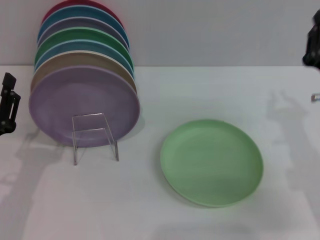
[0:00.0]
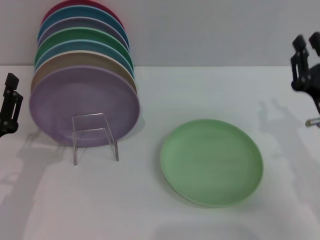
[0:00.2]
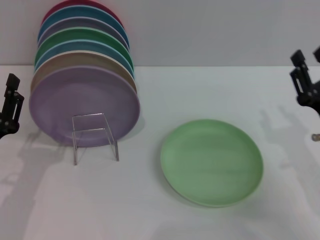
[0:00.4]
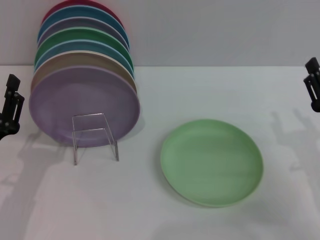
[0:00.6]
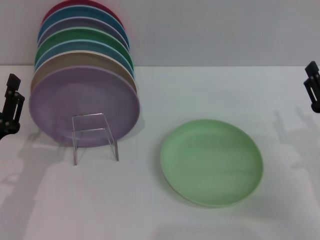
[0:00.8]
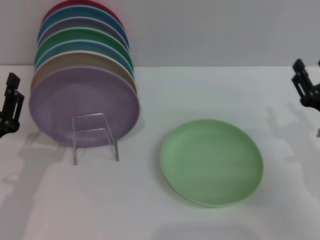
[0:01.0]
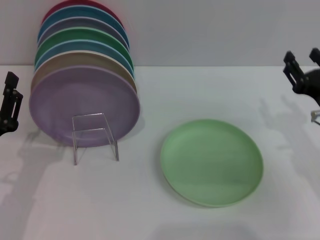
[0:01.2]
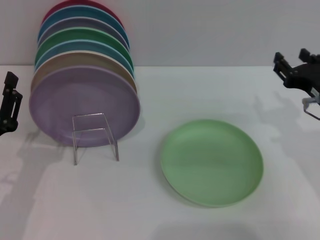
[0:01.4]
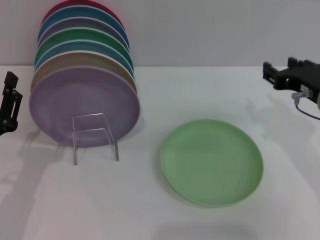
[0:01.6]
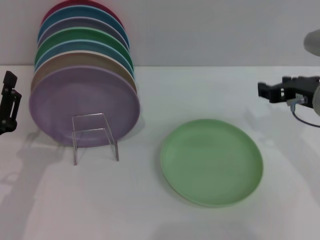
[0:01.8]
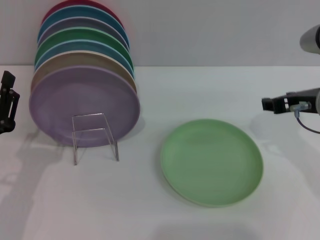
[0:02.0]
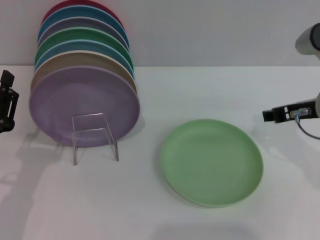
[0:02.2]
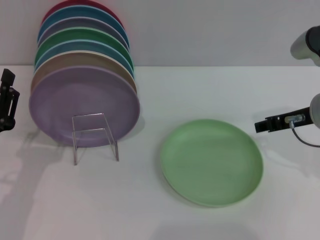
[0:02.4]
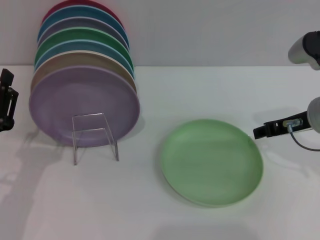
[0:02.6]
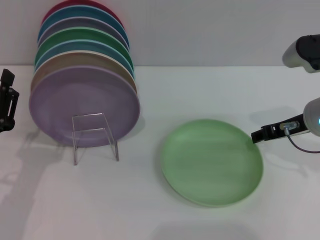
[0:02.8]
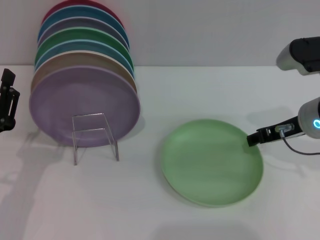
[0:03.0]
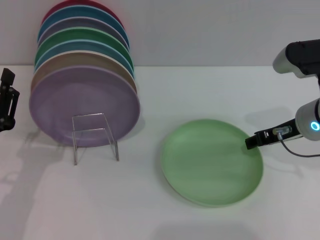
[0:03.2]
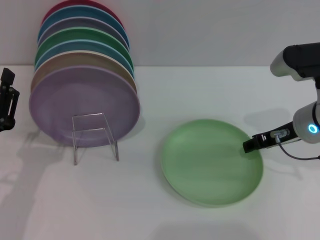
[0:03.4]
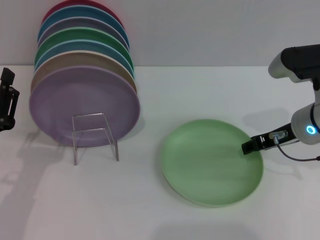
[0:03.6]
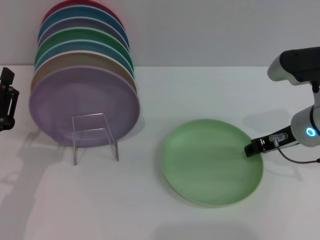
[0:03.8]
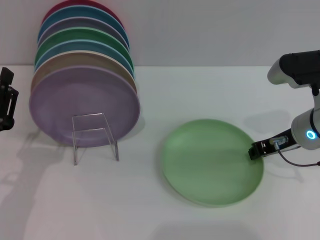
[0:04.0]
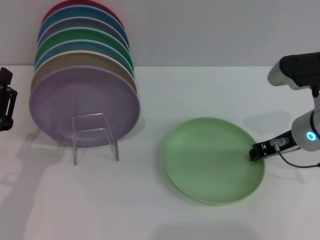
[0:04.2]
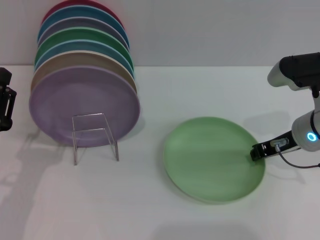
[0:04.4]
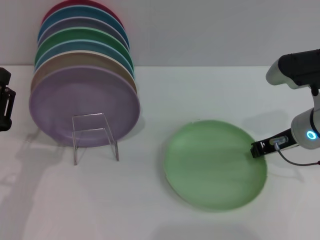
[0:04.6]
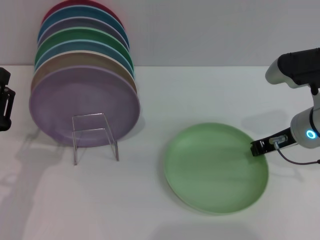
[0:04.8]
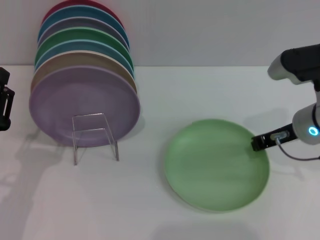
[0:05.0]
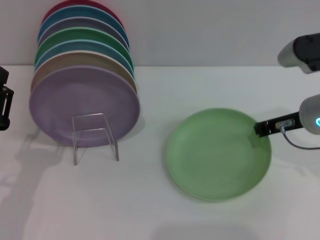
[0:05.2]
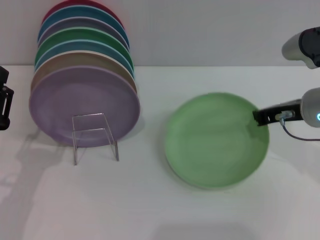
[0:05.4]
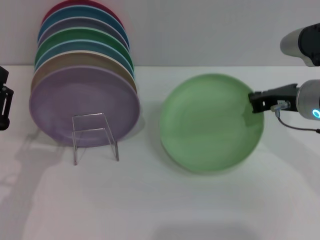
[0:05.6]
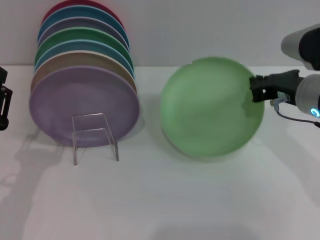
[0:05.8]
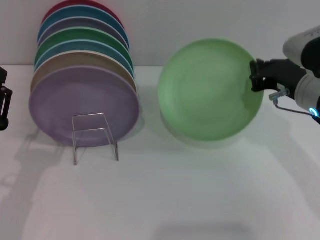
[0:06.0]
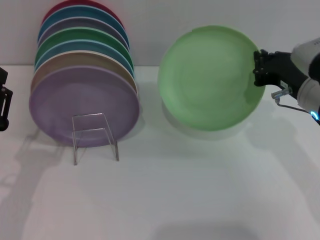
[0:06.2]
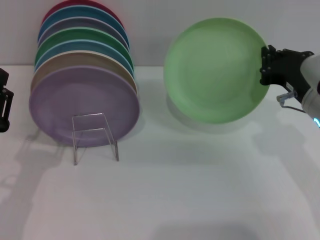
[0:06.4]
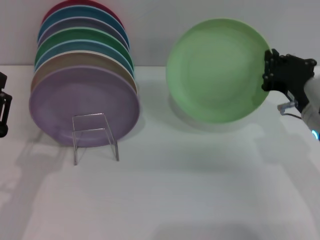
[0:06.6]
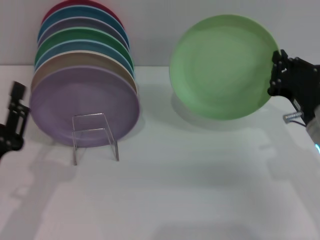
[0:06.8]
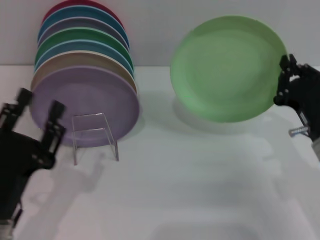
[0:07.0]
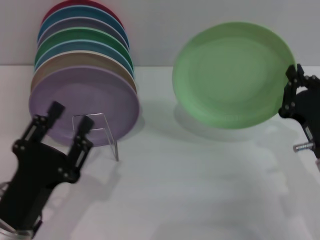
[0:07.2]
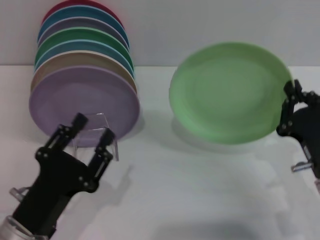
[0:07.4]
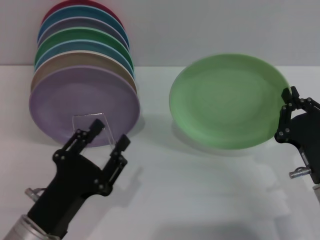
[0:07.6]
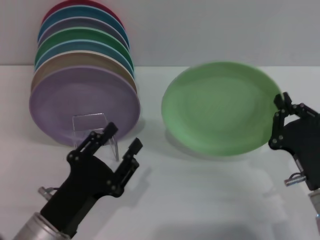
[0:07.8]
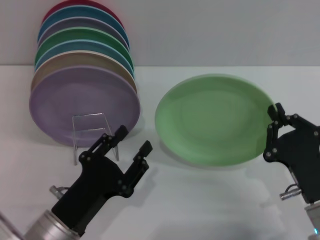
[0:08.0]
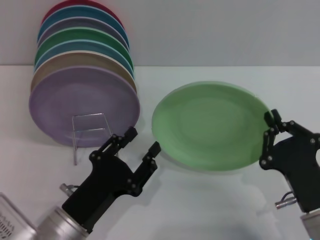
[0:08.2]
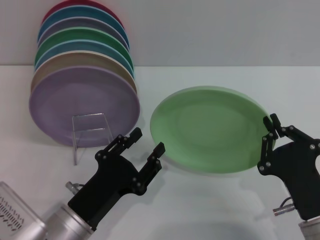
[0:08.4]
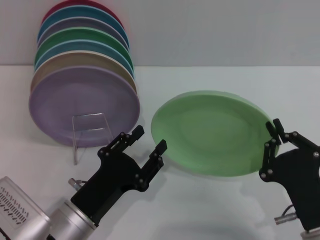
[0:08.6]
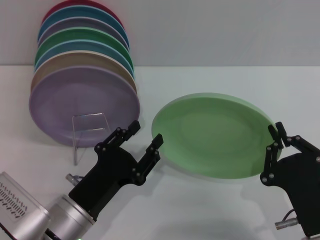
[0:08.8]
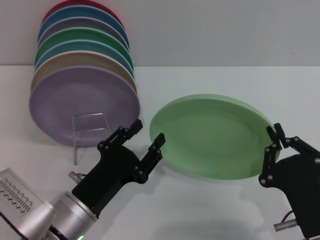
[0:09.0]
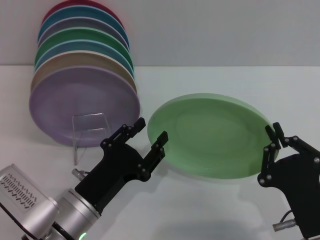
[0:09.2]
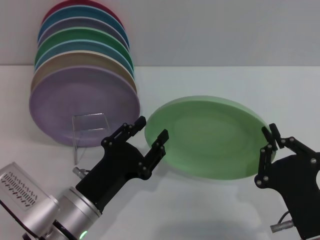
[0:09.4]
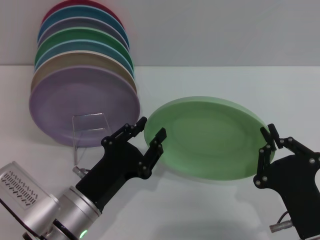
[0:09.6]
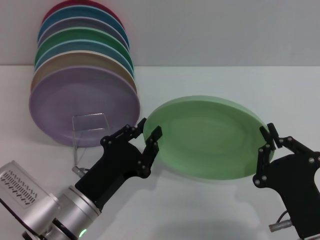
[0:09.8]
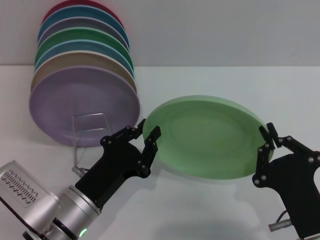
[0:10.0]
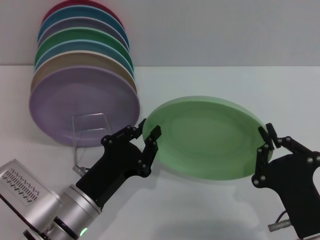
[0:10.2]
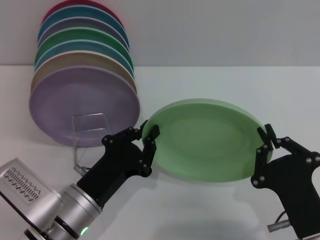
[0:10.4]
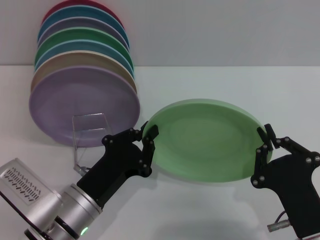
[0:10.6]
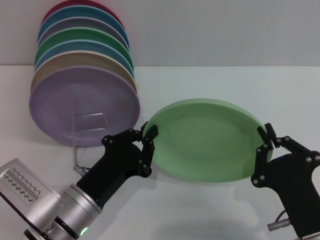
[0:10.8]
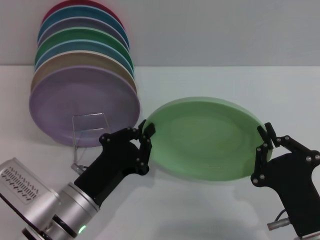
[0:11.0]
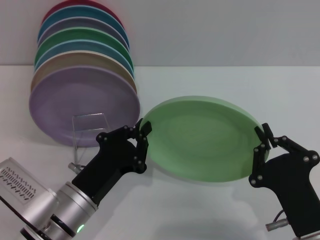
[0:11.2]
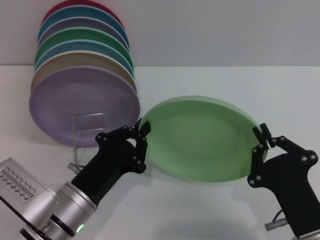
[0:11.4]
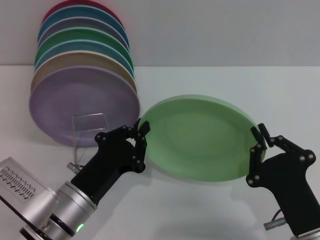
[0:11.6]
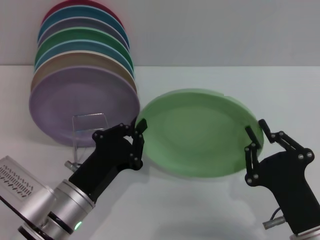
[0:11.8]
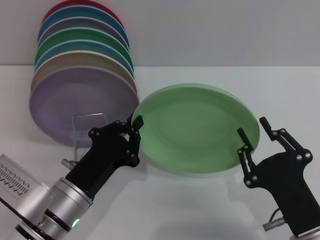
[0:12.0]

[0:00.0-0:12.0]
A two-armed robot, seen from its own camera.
Task of the whole recording: Grip the plate with one hand, pass it to the other, then set it on the shelf.
Step, 0:00.0 to 0:05.4: Pick up the plate with the right gripper.
0:00.0 to 0:01.6: The right gripper travels upward by roughly 5 cm, and opens up.
0:03.0 to 0:04.4: The right gripper closes up.
0:06.0 to 0:07.6: The right gripper heads downward and backward, covering approximately 15 cm. The left gripper is displaced to the right by roughly 10 cm.
0:07.6 to 0:09.0: The right gripper goes some 5 cm backward. The left gripper ends up approximately 5 cm from where it was.
0:09.0 to 0:10.4: The left gripper closes.
0:10.4 to 0:12.0: The grippers move only a little.

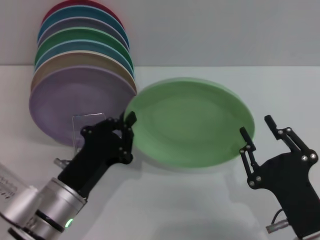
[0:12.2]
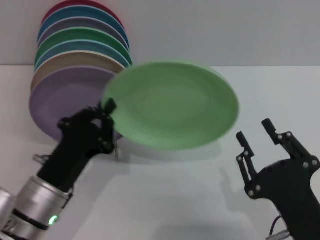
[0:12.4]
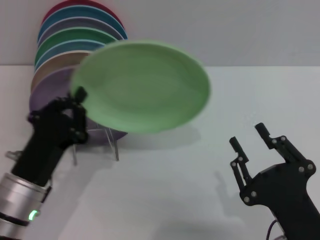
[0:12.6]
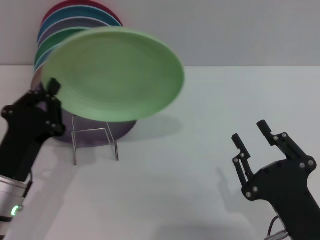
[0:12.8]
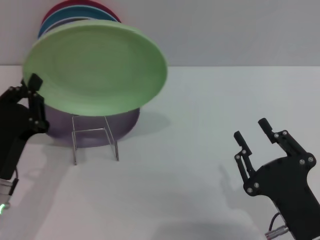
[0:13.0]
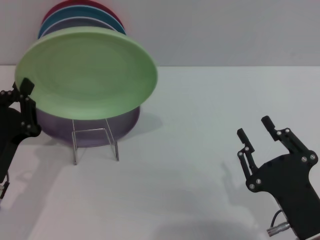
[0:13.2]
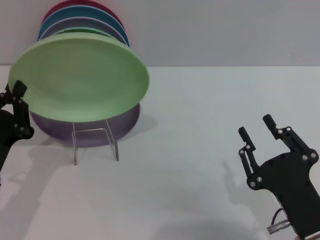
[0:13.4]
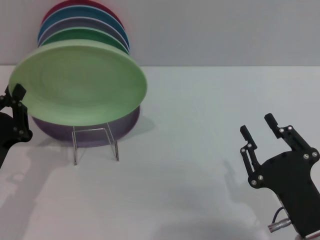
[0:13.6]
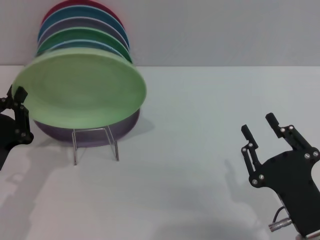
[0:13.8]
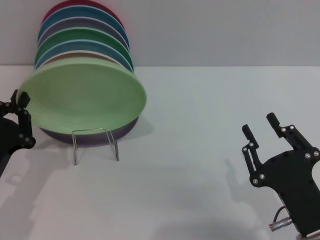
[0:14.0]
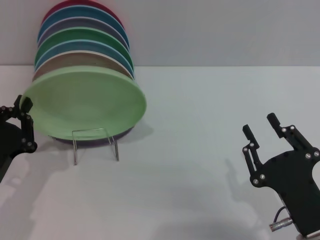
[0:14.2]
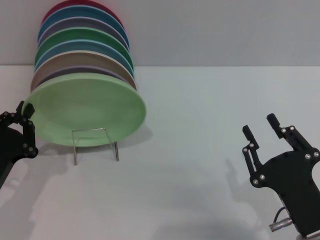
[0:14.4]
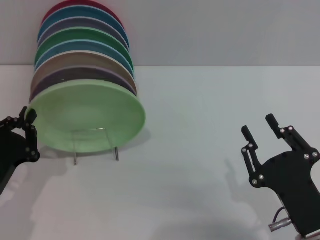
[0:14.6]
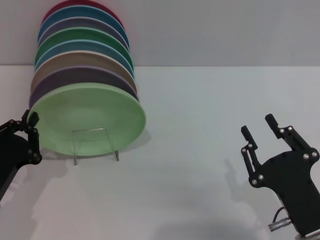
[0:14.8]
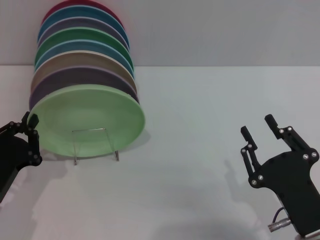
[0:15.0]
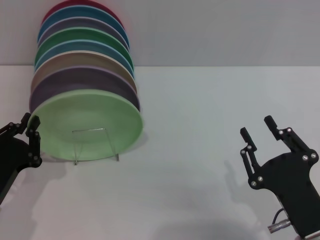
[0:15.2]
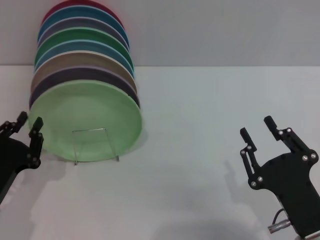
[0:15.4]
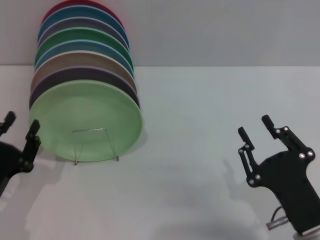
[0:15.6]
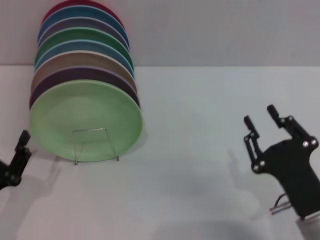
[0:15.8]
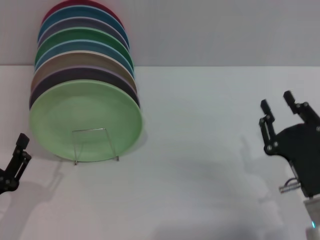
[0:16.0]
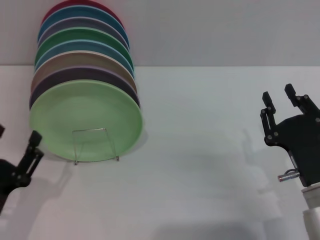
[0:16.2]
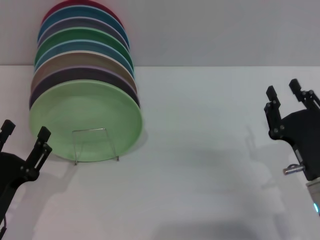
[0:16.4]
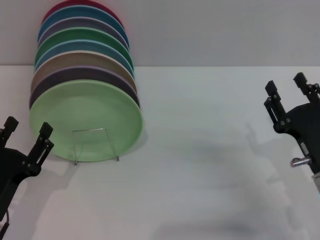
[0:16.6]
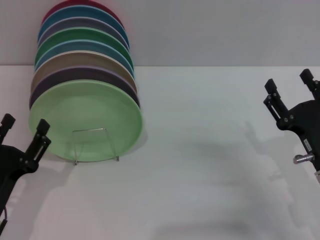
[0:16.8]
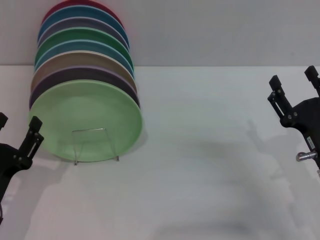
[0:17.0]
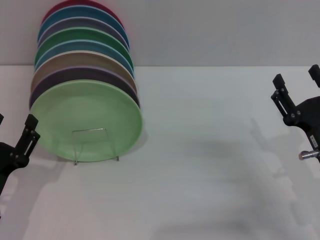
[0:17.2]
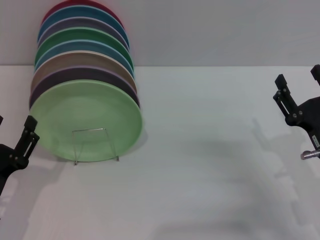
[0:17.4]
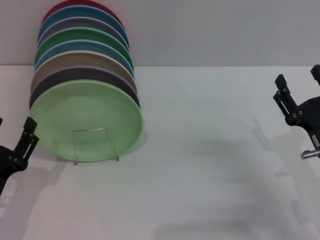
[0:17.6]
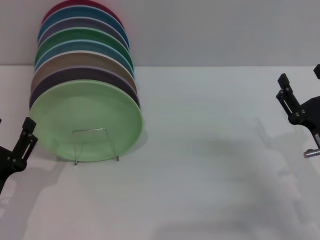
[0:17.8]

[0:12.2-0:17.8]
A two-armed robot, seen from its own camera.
Task of the whole recording: Grip the plate with one hand, pass it to the other, then set it on the shelf.
Step, 0:12.2 to 0:15.6: Place the plate on the shelf with the left gripper.
0:12.2 to 0:13.6: The left gripper shifts roughly 10 cm to the left.
0:13.6 to 0:15.0: The grippers move only a little.
0:15.0 to 0:16.4: The left gripper opens its fingers. The right gripper moves forward, about 5 cm.
0:16.4 to 0:17.8: The right gripper opens its fingers.
